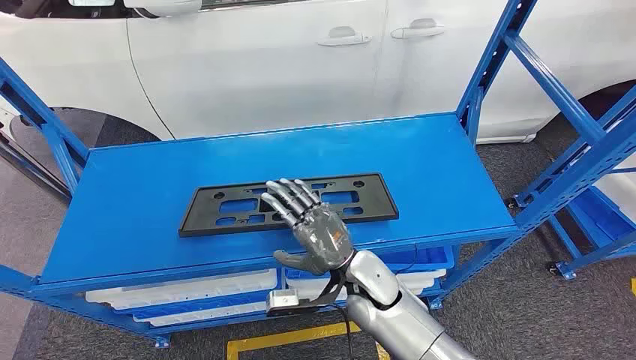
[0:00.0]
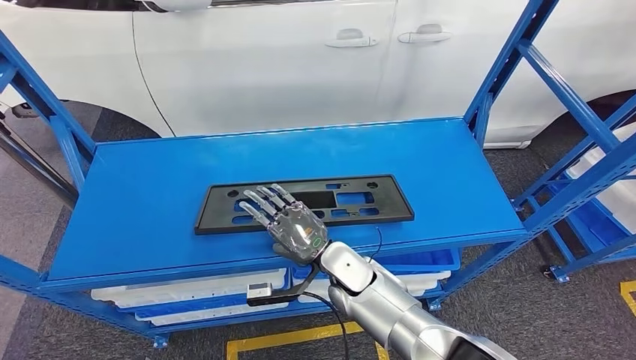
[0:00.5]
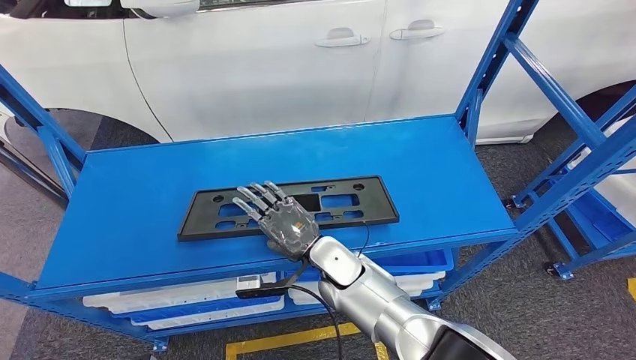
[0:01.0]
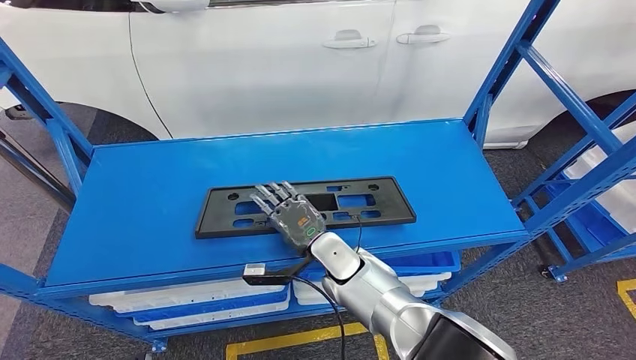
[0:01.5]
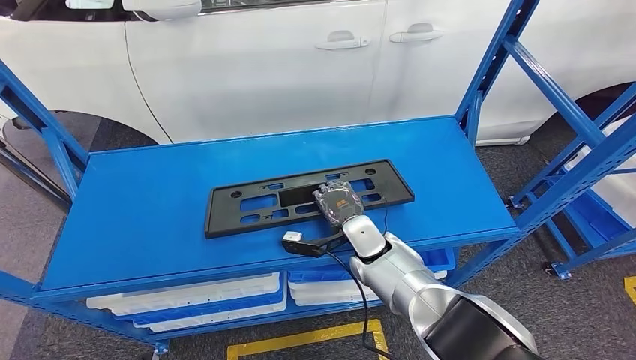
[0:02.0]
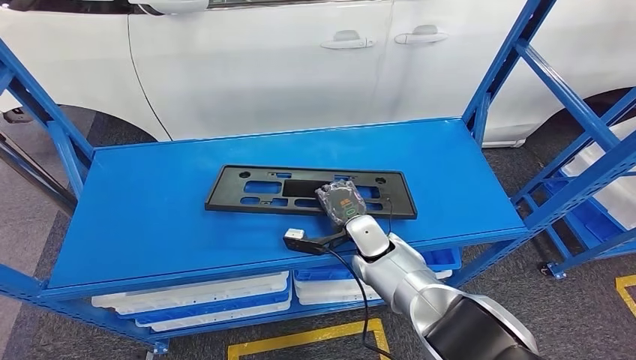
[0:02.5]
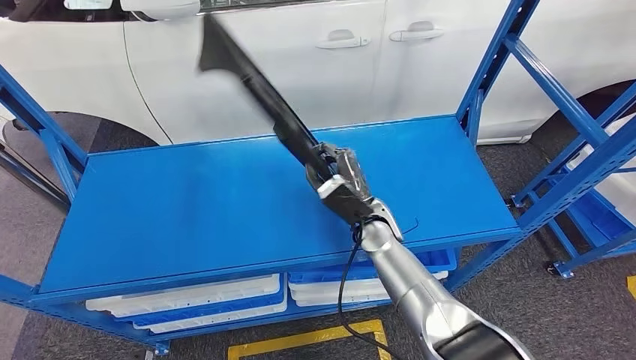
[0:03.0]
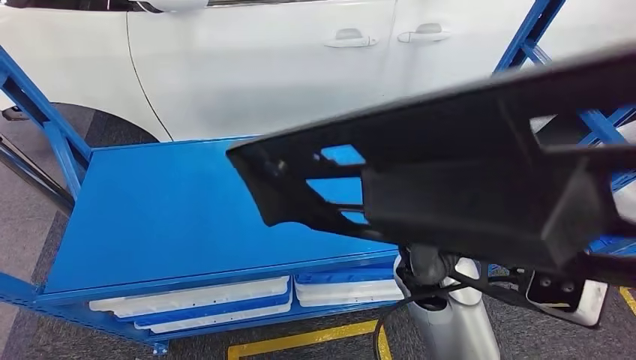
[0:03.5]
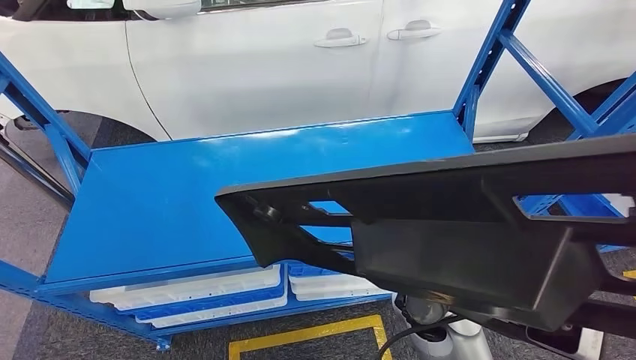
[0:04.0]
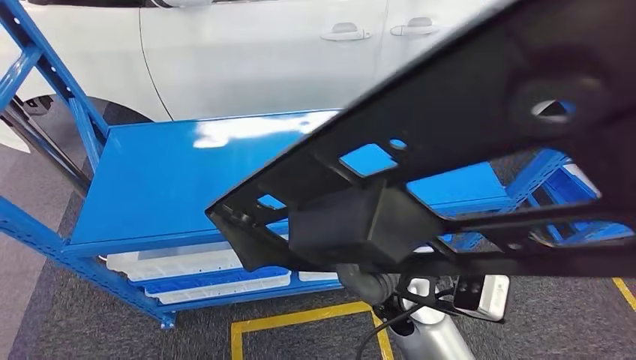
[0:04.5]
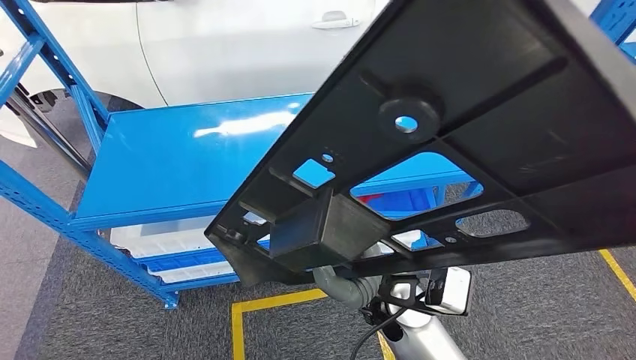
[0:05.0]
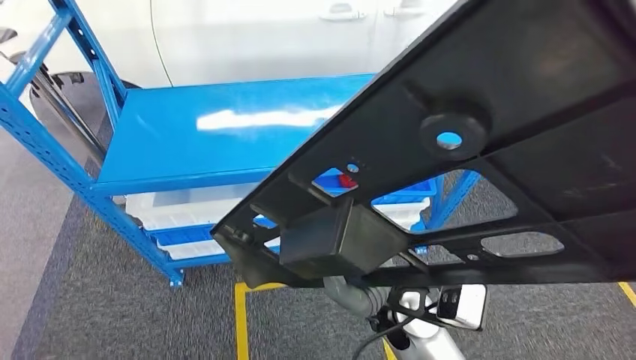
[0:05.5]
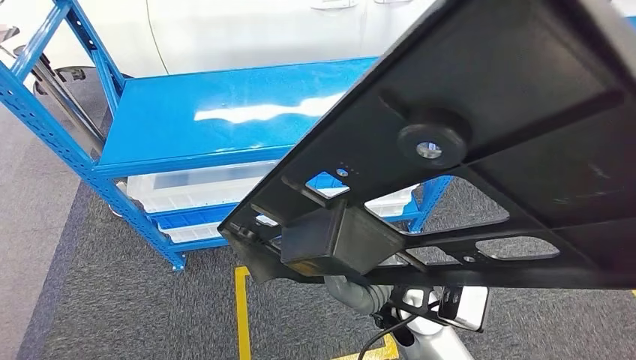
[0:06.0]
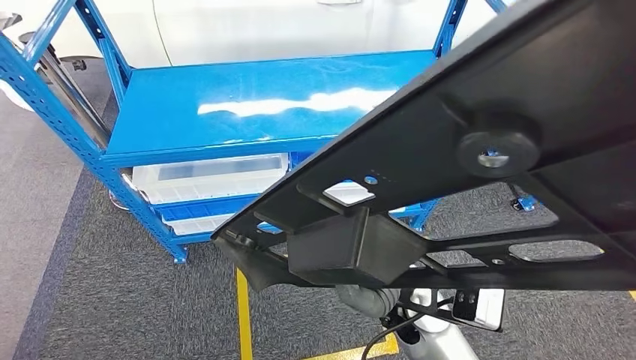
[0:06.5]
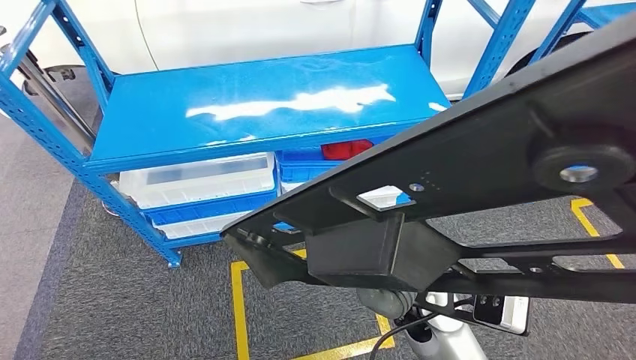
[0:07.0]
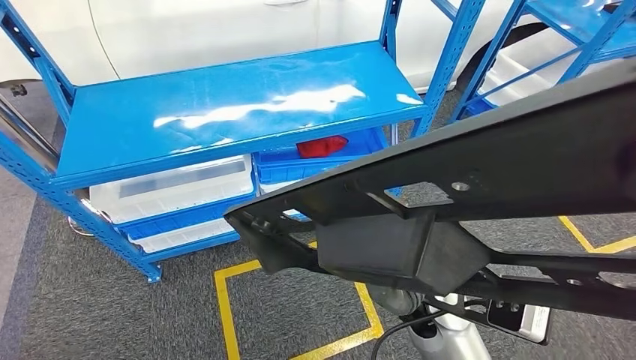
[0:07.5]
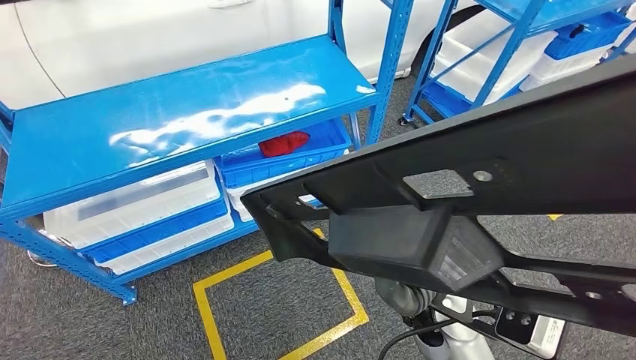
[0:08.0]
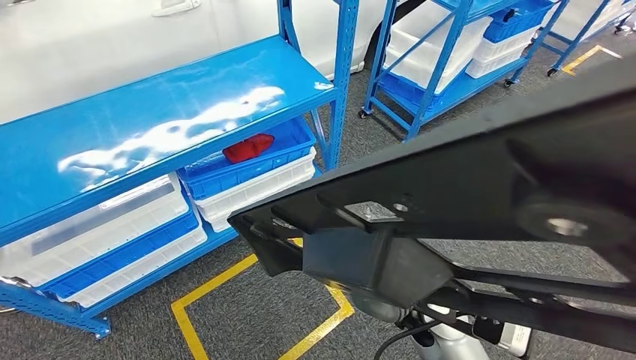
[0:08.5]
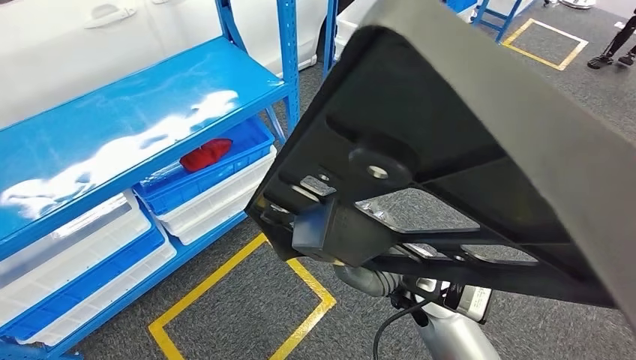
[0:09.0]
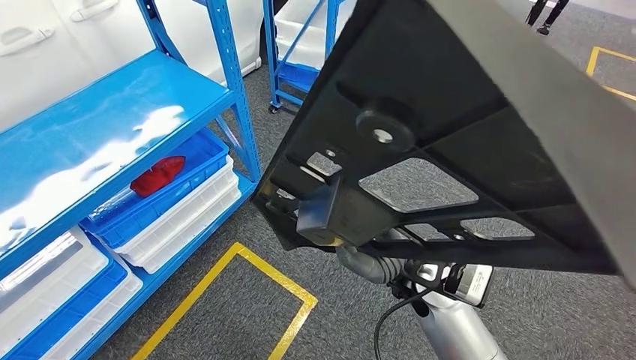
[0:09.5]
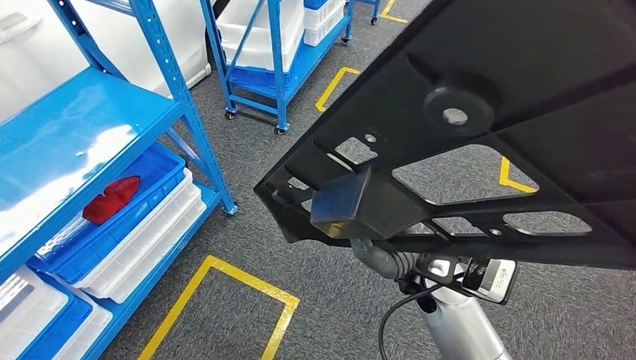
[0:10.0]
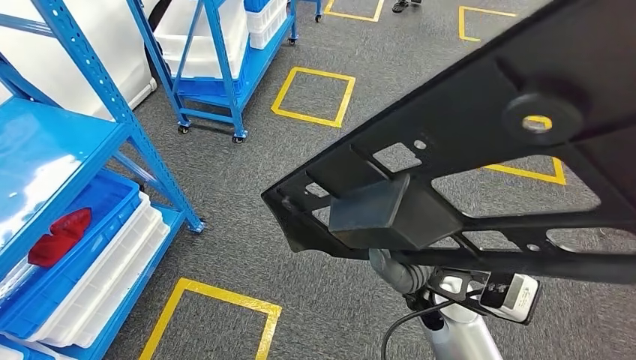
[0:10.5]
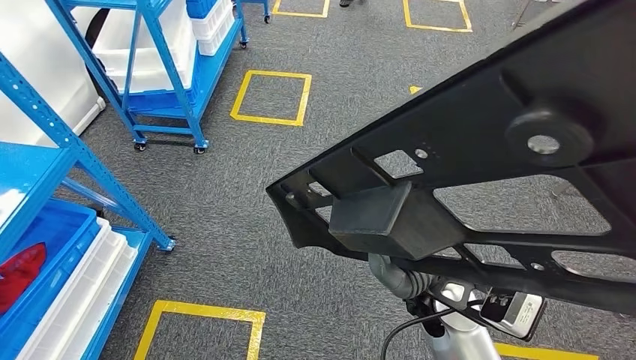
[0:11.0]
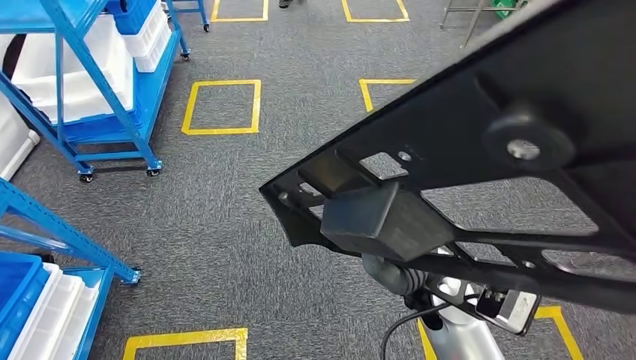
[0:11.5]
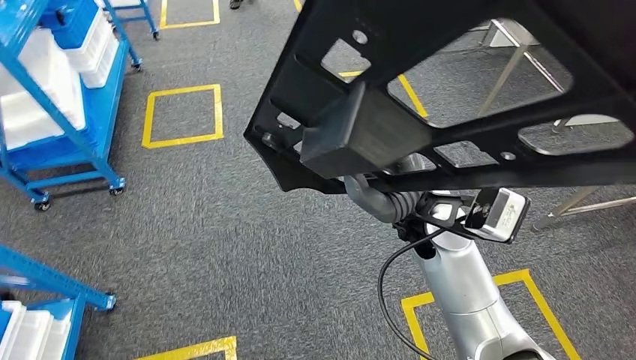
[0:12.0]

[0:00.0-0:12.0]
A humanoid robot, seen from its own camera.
Step, 0:00.0 to 0:03.5: Pick up the large material from the shelf.

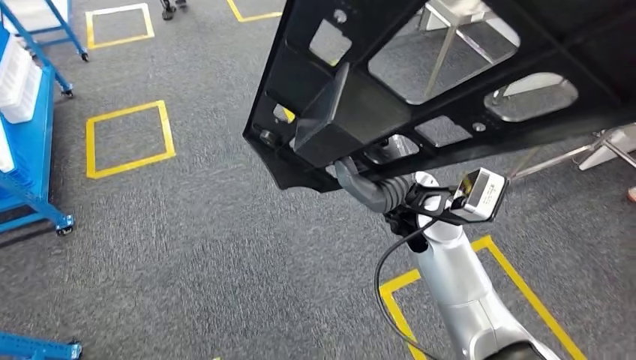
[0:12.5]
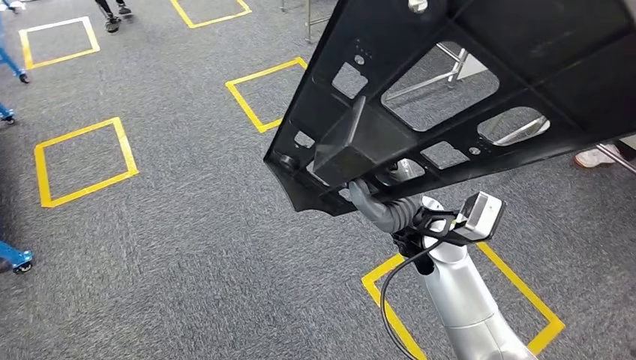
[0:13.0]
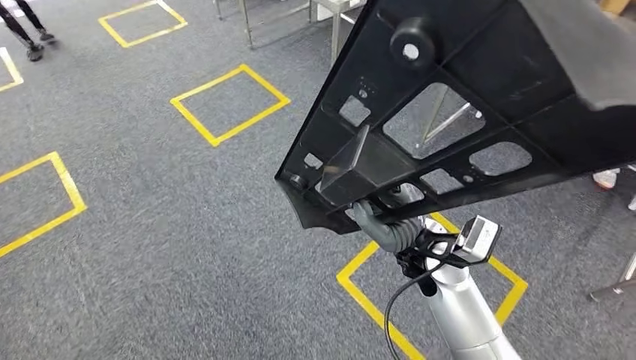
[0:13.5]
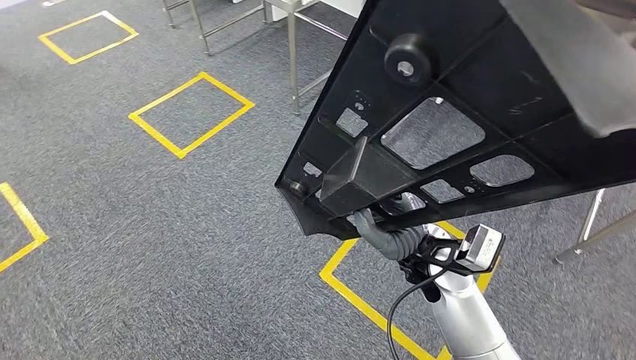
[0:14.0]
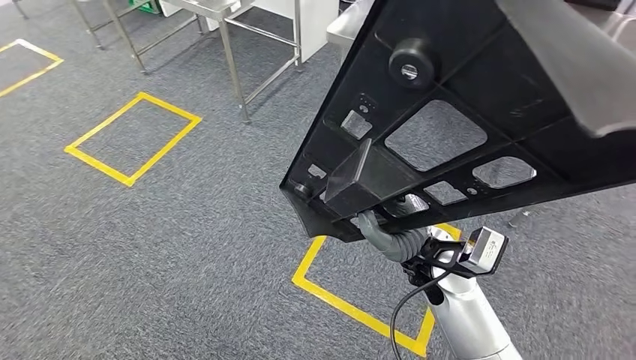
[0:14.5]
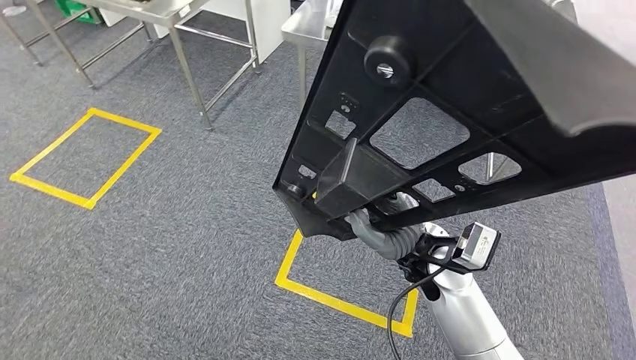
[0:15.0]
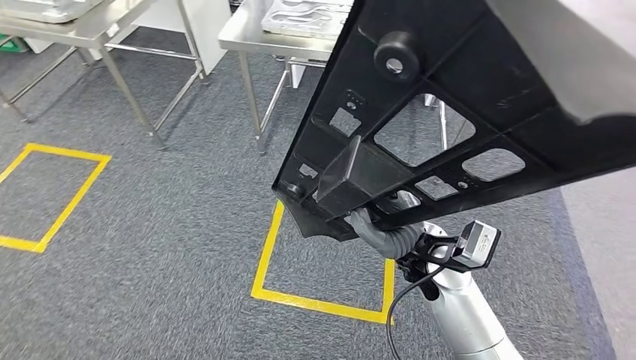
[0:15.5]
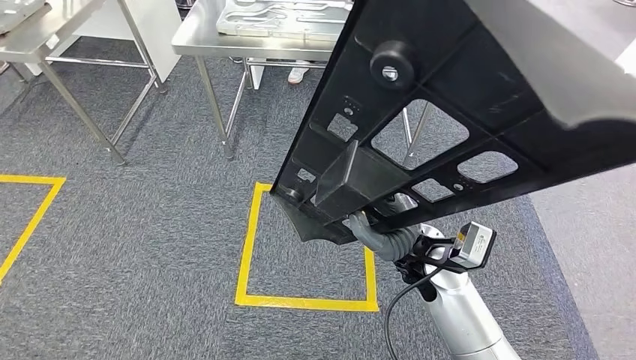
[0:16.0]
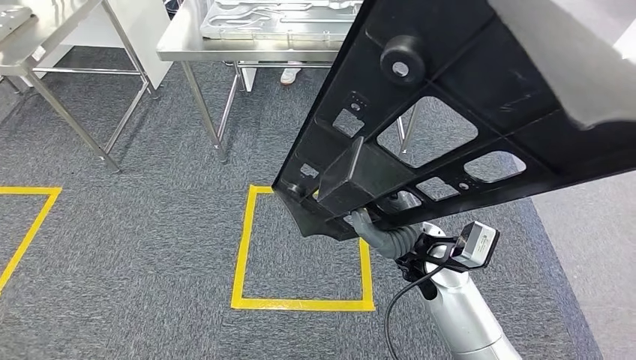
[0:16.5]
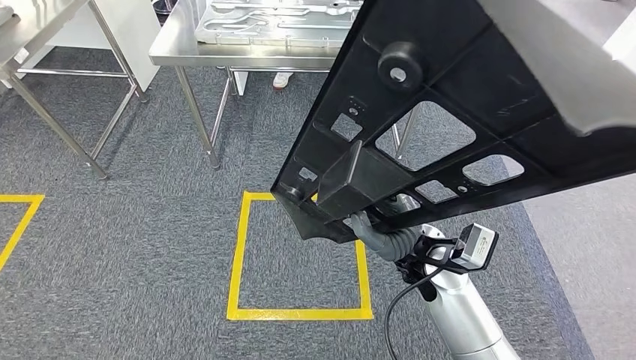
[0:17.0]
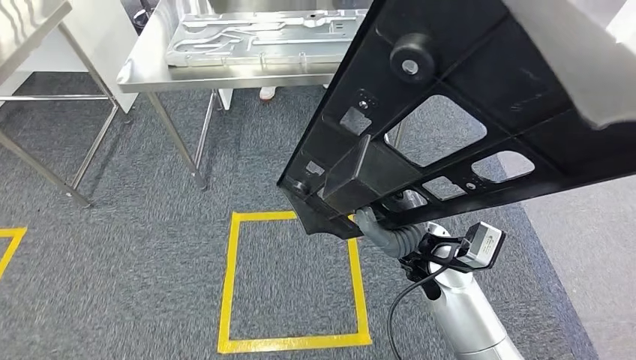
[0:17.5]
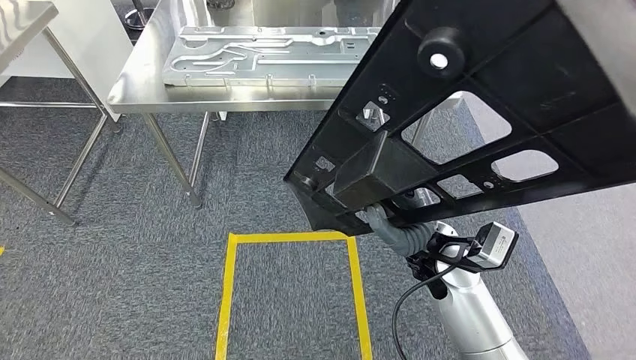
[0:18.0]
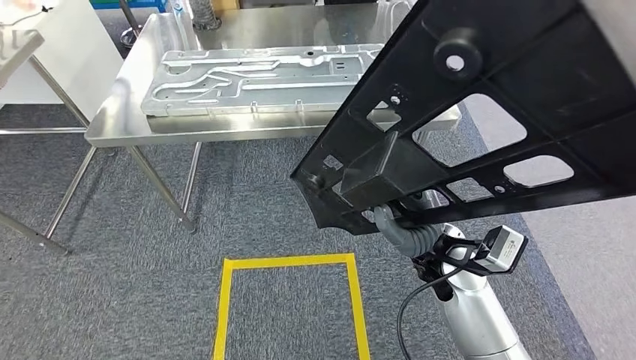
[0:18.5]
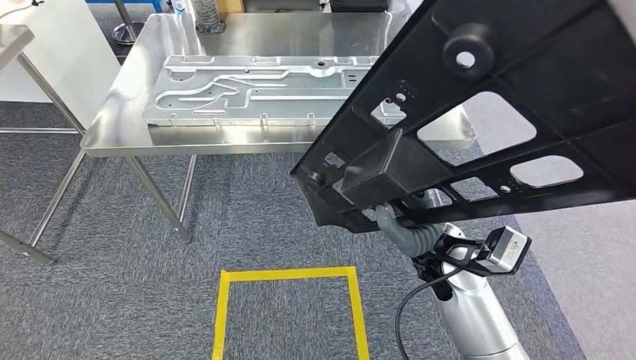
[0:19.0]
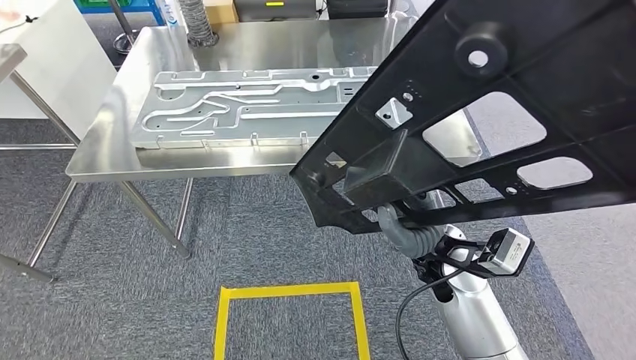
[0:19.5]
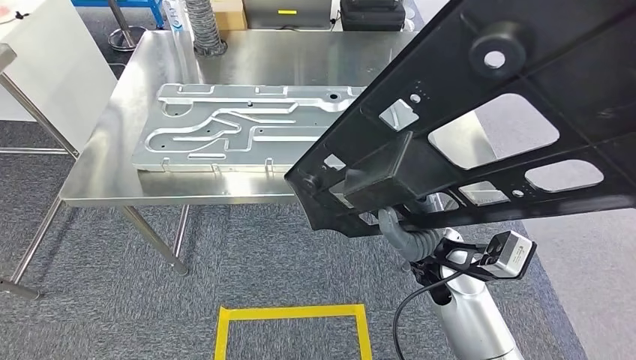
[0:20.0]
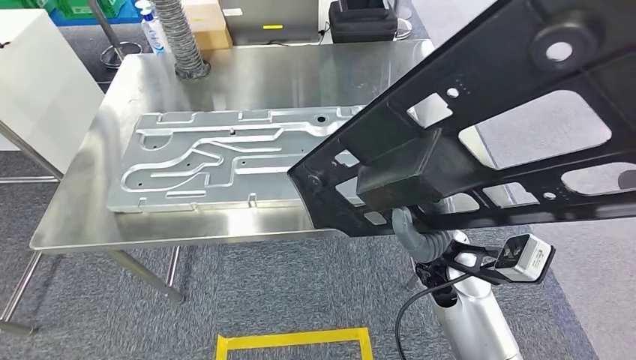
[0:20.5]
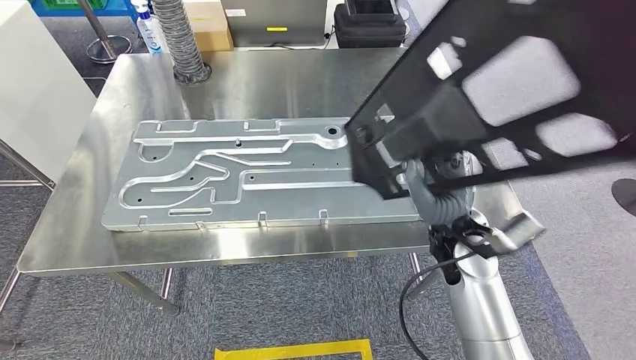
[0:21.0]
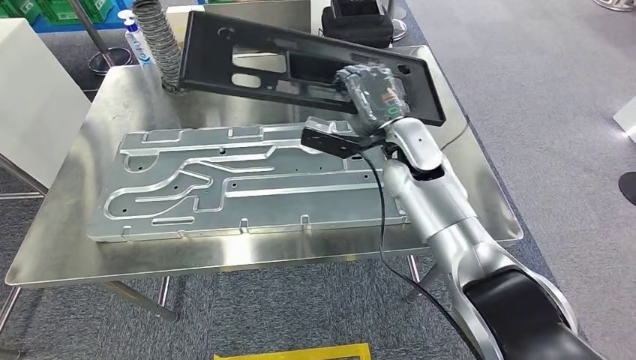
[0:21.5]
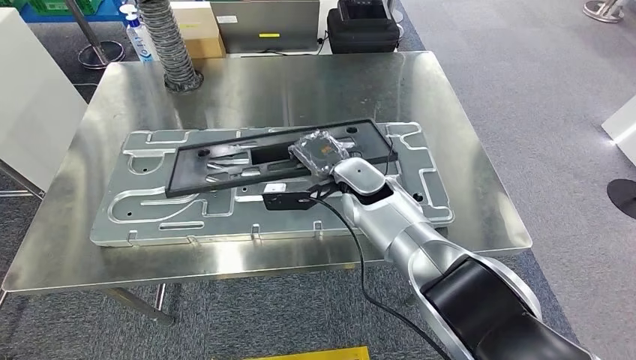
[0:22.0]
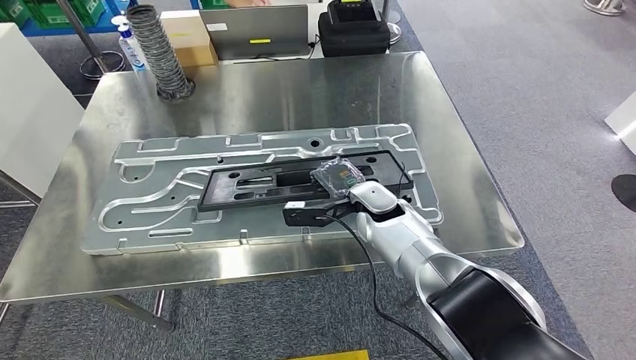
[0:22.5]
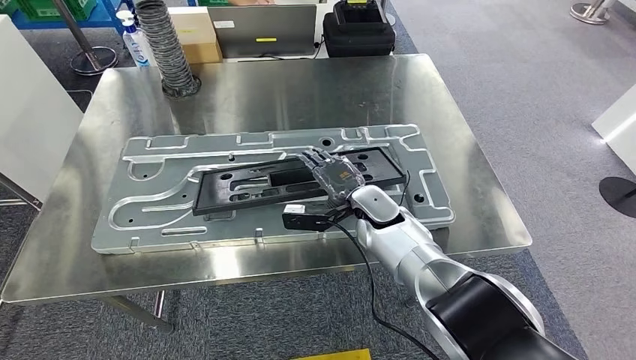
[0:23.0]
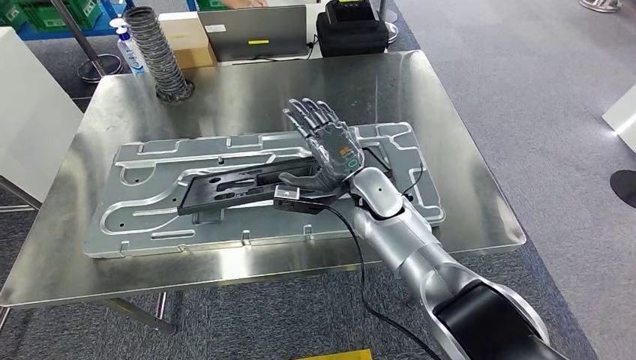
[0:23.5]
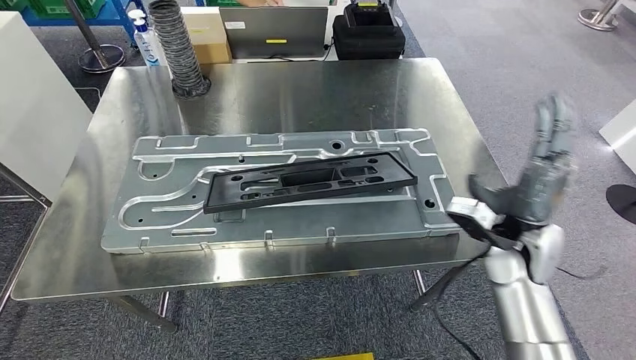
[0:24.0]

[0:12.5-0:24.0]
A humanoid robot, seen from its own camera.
Step, 0:12.5 to 0:20.5: Move the large material to the workbench.
Step, 0:21.0 to 0:23.5: Insert the large material into the corresponding slot on the workbench.
